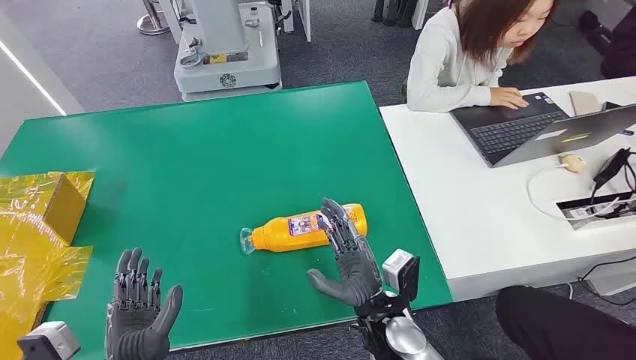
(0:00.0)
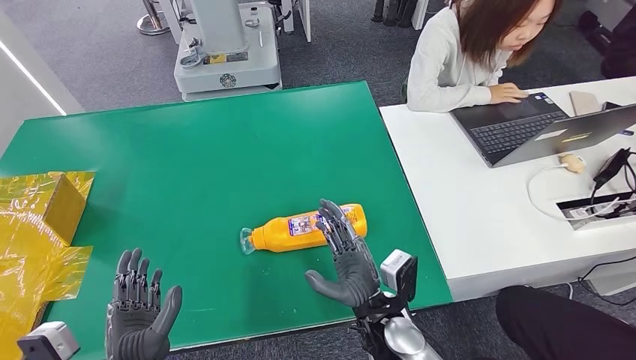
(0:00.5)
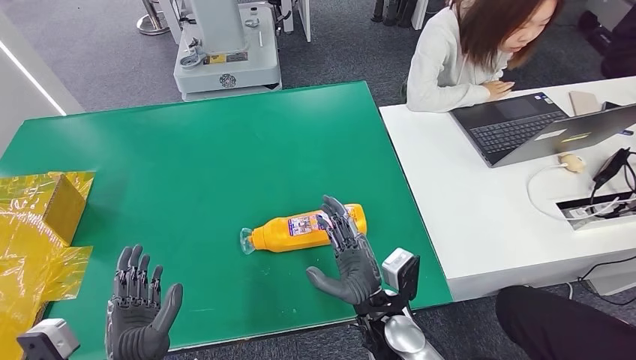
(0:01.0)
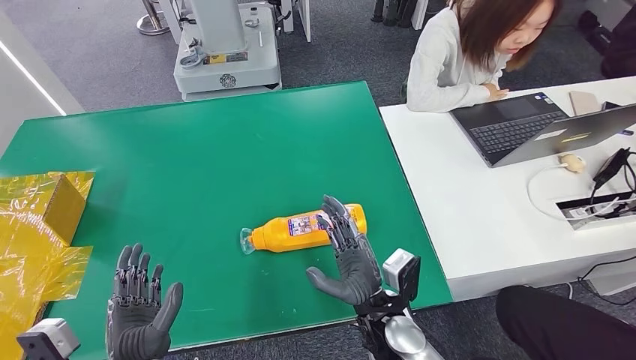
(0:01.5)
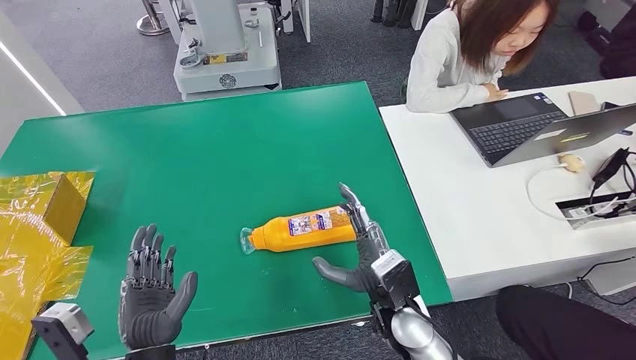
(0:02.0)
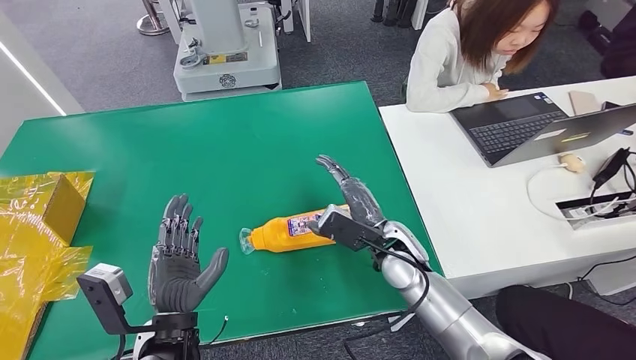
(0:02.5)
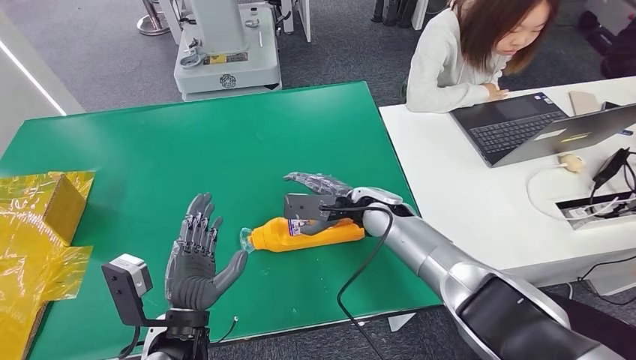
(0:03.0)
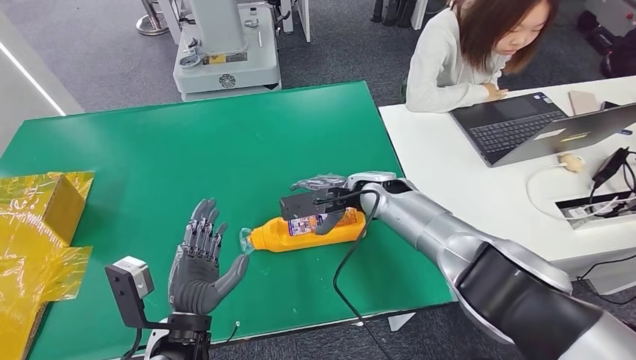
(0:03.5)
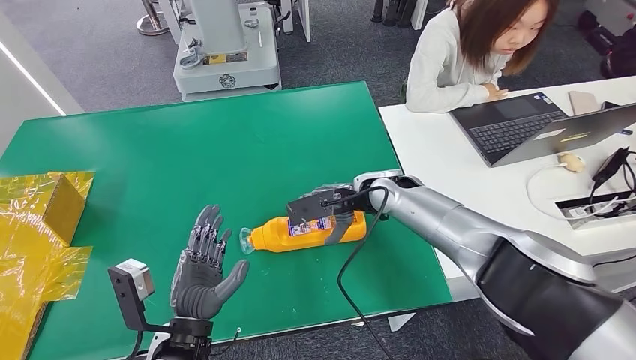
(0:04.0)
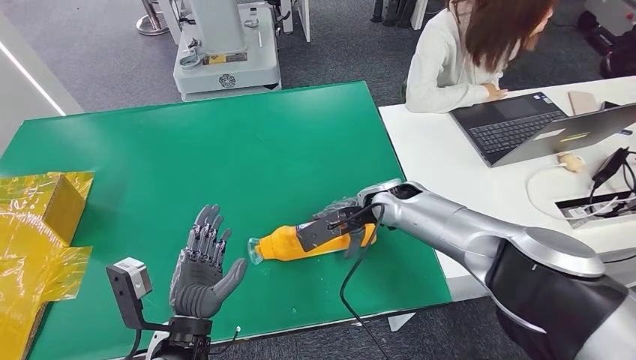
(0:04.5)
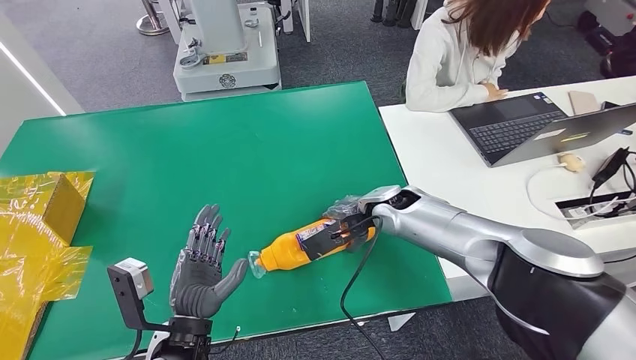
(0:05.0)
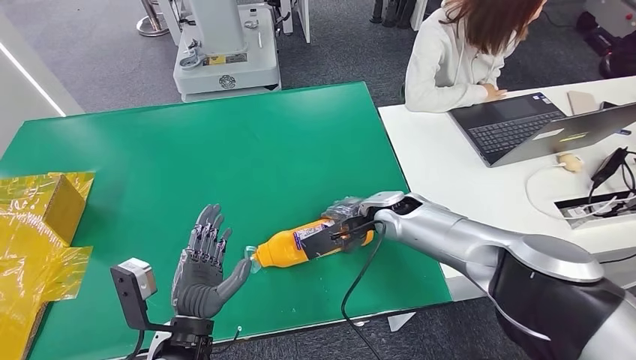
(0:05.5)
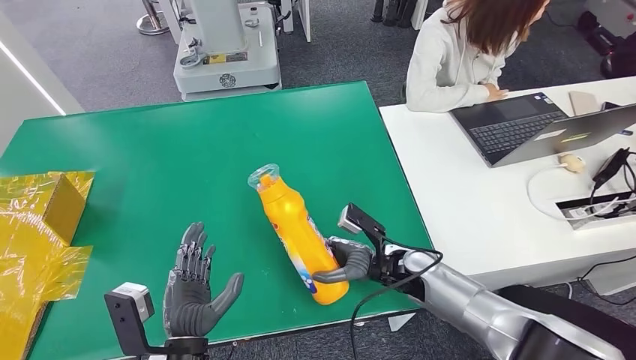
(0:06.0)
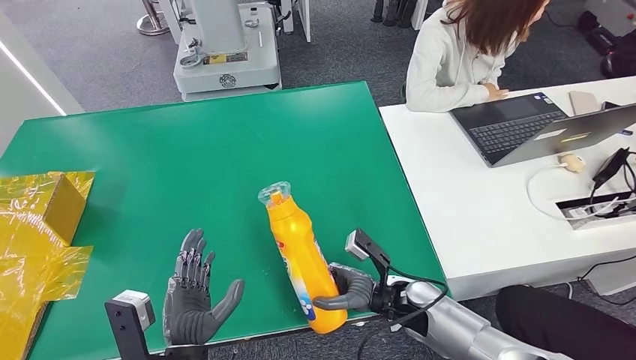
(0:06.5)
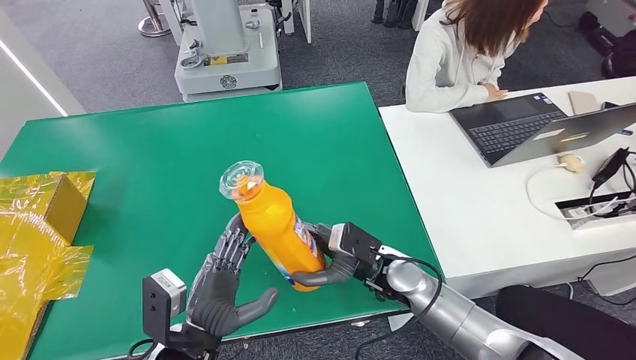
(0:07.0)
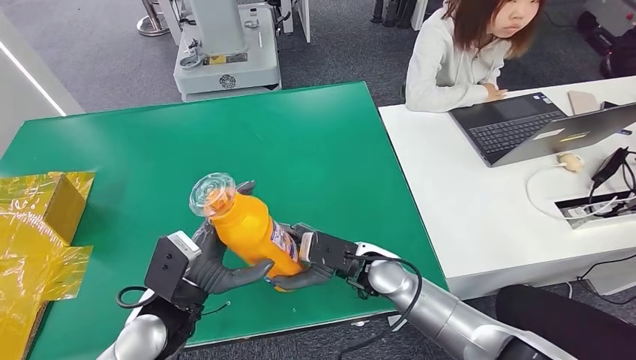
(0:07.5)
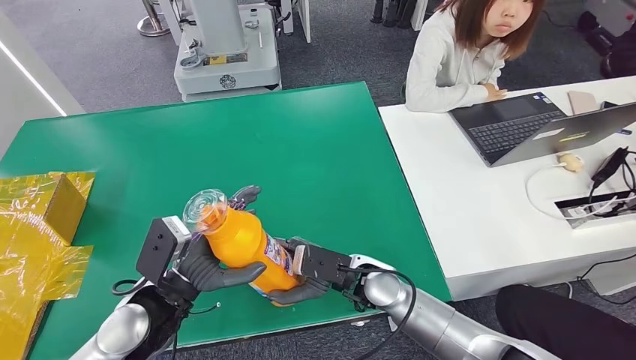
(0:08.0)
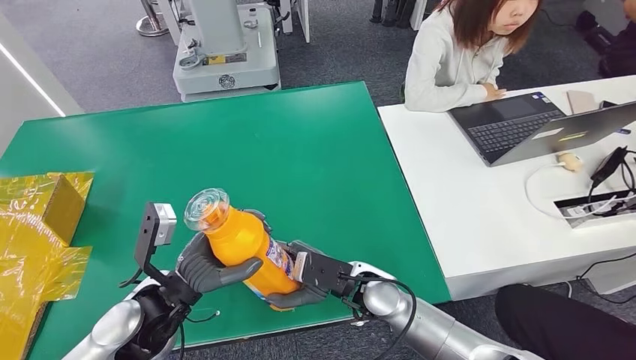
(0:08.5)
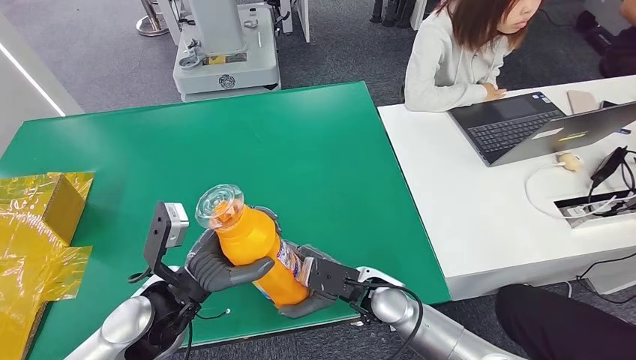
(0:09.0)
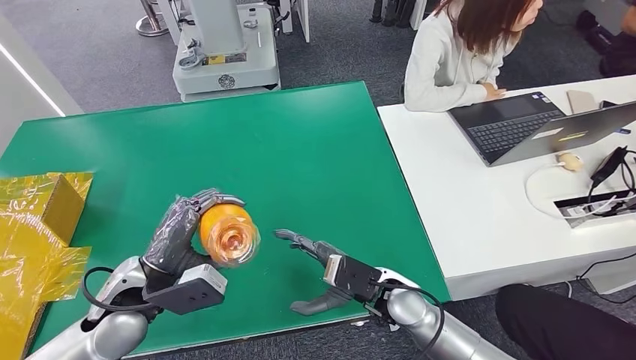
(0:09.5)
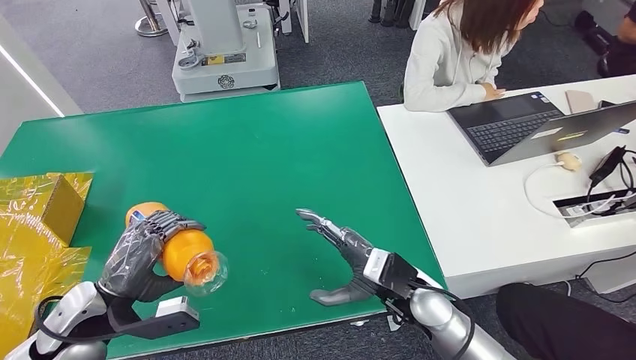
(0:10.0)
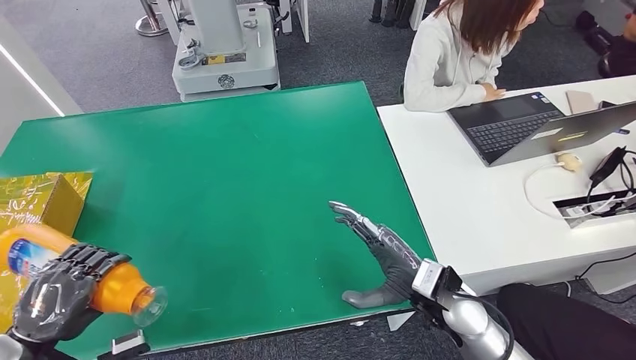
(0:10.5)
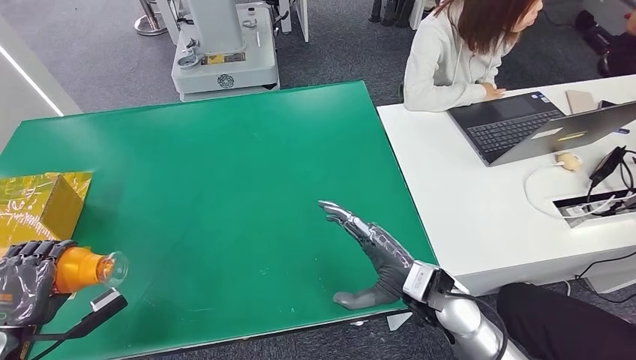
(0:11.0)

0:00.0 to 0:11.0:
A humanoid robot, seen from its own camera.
Step, 0:00.0 to 0:05.5: Pick up the bottle from the table.
0:02.0 to 0:03.5: The left hand ends up roughly 5 cm from where it was; the right hand shifts approximately 20 cm forward and upward.
0:03.5 to 0:05.5: The right hand ends up roughly 5 cm from where it was.
0:09.0 to 0:11.0: The left hand moves to the left, approximately 30 cm. The right hand is displaced to the right by about 10 cm.

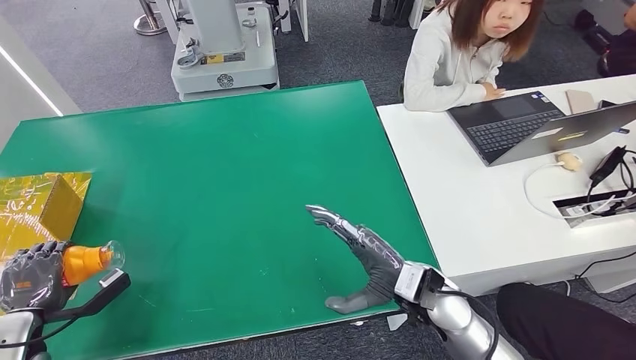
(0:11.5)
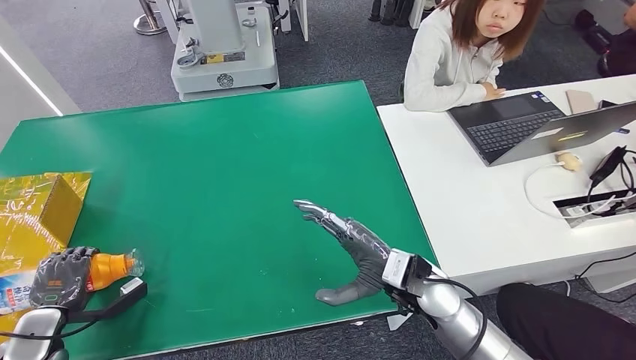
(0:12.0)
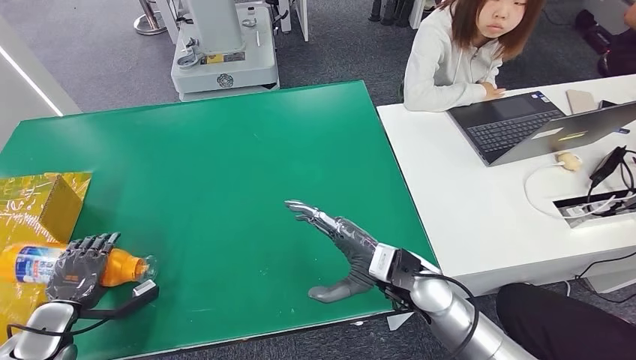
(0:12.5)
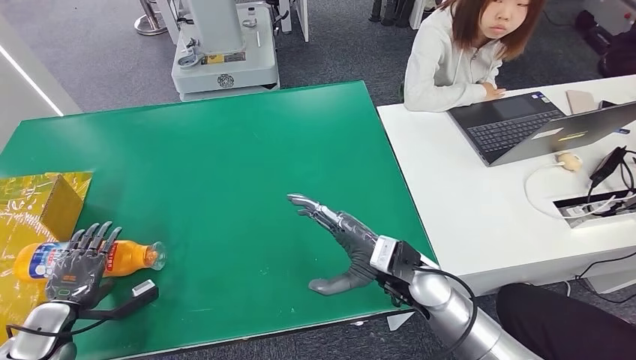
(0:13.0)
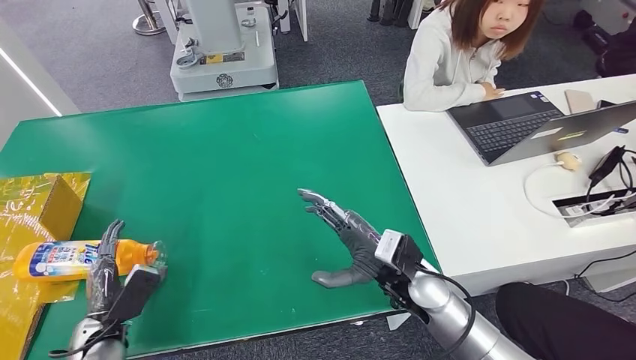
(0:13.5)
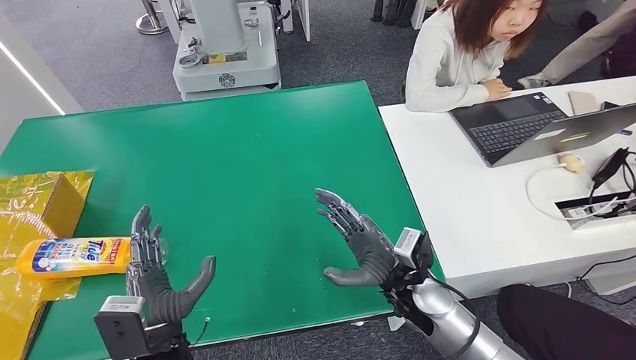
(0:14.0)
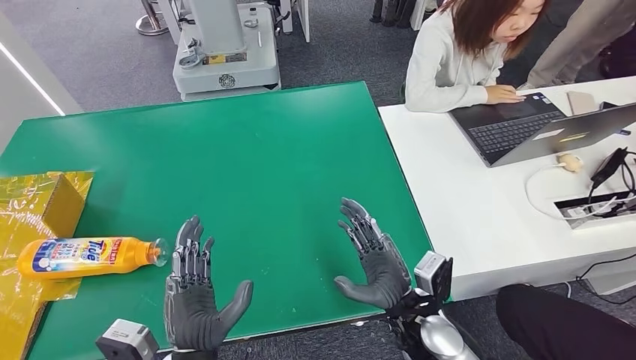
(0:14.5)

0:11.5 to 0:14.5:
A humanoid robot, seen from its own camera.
Step, 0:11.5 to 0:14.5: Turn the bottle to the front side.
0:11.5 to 0:13.0: The left hand moves approximately 5 cm.
0:13.0 to 0:14.5: The left hand heads to the right, covering about 30 cm; the right hand moves backward, about 5 cm.
